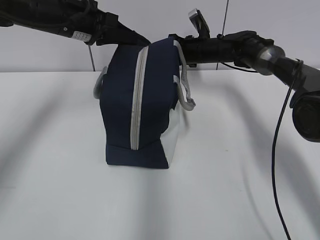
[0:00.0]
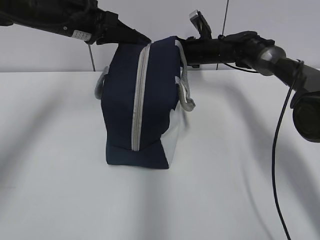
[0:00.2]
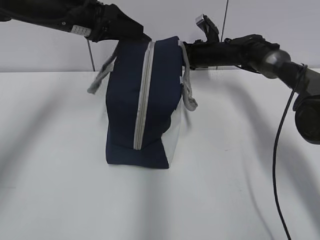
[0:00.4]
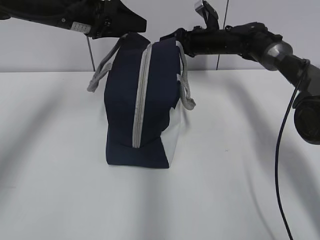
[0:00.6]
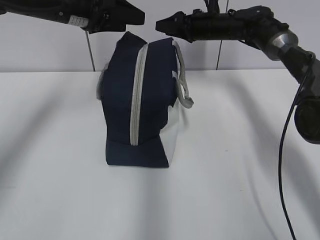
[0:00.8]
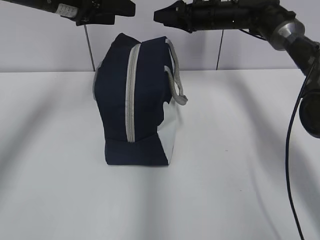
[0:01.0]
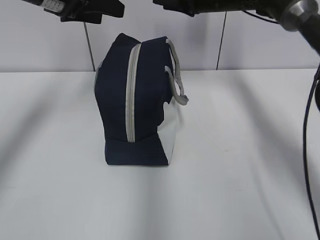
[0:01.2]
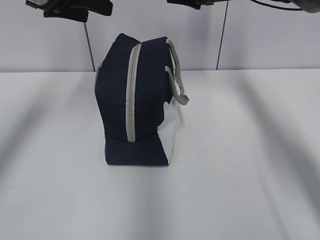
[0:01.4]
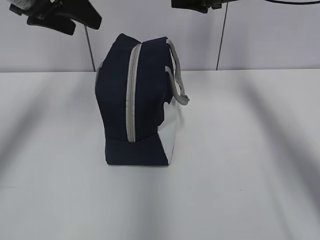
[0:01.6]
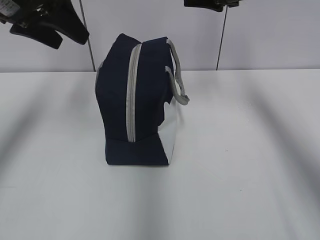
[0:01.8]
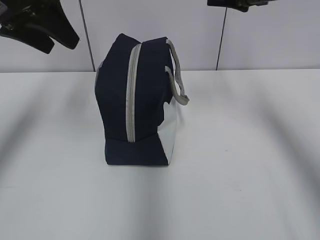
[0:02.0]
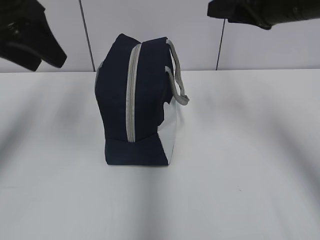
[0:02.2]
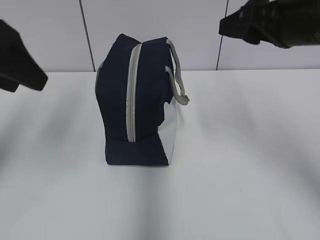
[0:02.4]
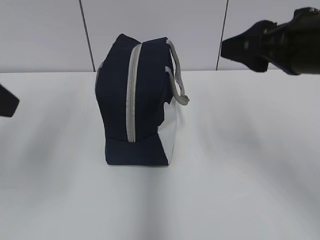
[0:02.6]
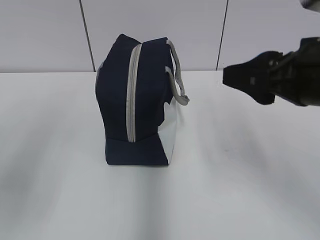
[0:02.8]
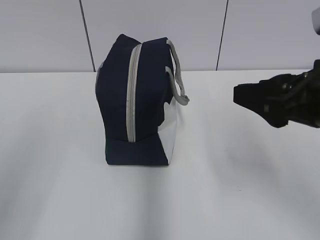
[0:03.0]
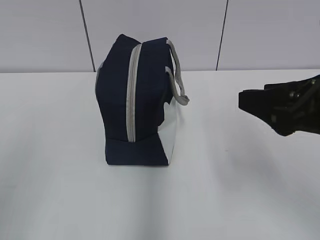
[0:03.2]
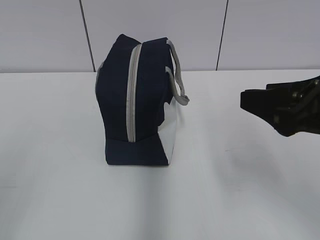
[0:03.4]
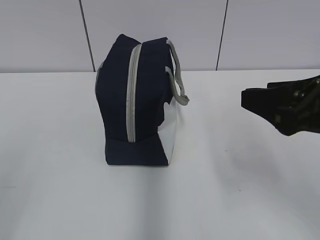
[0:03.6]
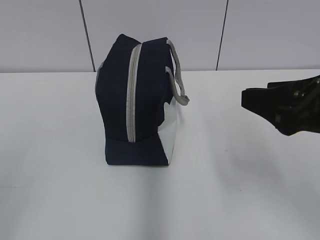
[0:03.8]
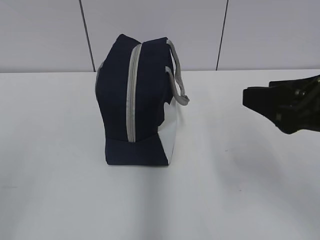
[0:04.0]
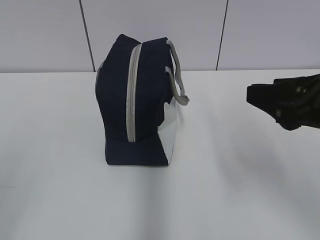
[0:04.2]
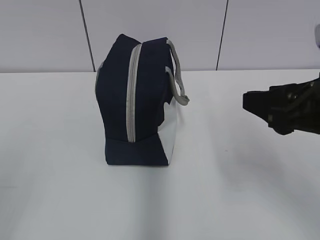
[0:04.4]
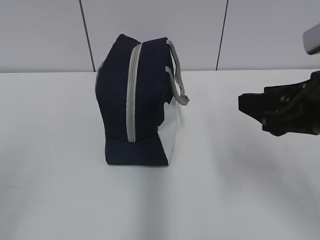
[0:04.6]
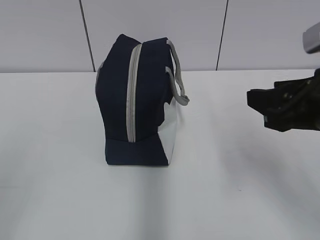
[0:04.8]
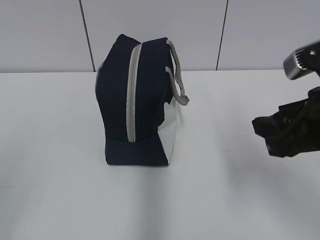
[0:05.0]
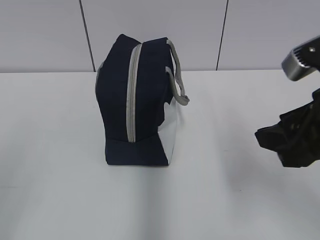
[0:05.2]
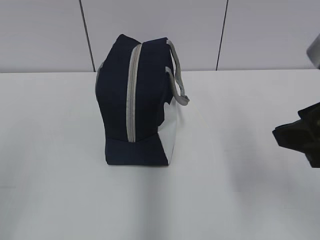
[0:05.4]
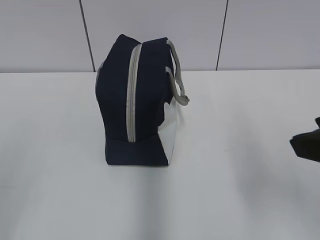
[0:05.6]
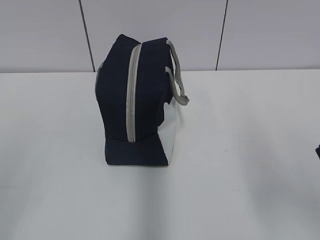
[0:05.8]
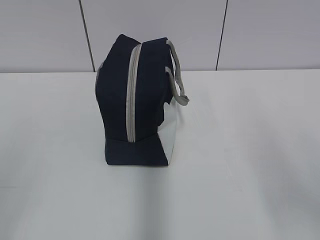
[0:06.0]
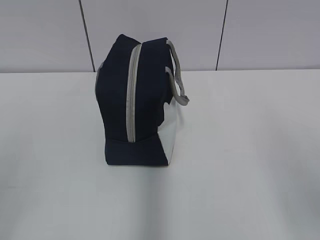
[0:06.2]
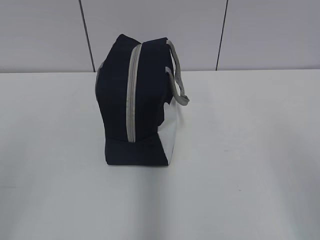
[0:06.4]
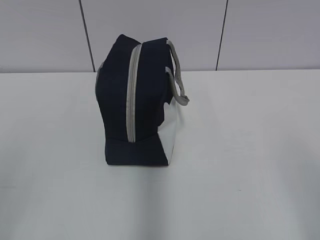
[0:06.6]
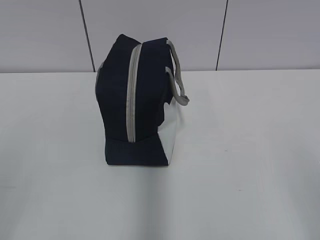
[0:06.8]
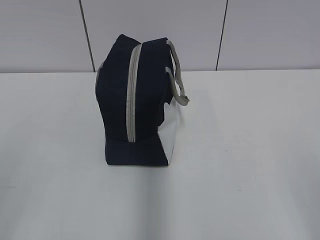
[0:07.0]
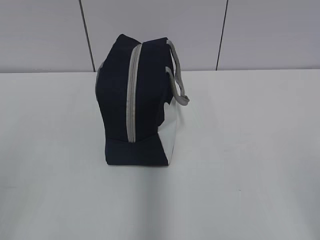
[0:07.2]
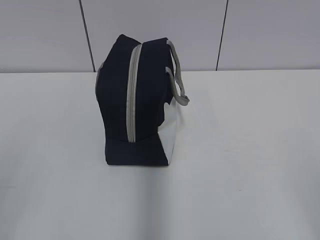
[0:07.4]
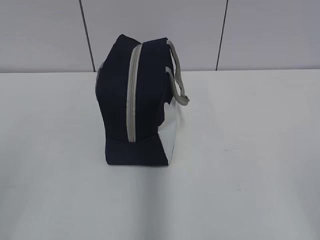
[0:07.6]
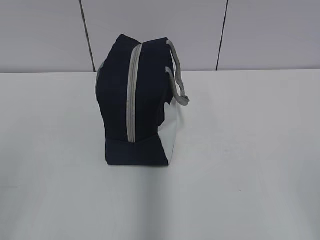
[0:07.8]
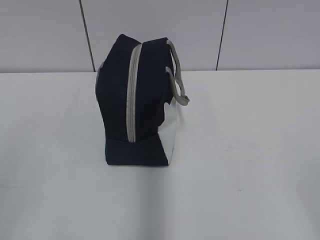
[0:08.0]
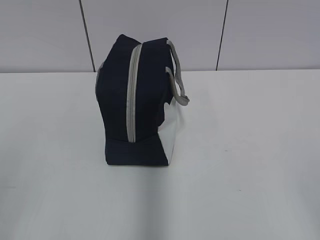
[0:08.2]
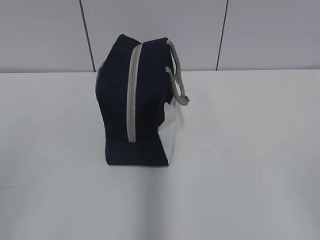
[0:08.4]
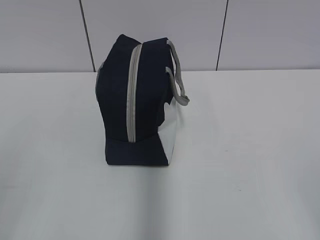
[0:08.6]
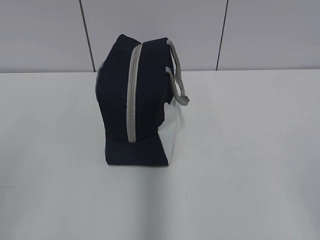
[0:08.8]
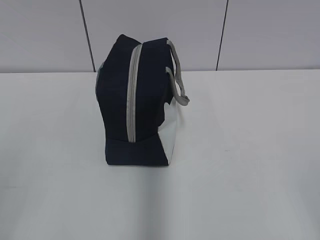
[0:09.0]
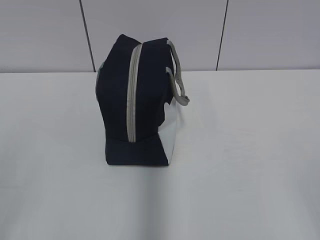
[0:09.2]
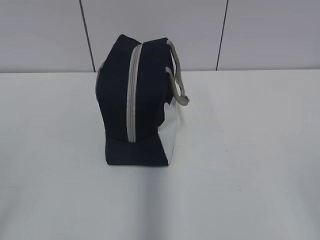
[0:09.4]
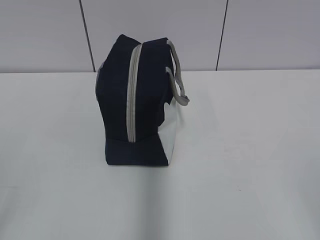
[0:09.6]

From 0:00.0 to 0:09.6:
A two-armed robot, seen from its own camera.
From 0:00.0 to 0:01.6: The left gripper travels upward and backward by approximately 10 cm, and opens its fingers. Meanwhile the right gripper moves upward and backward, roughly 20 cm, and opens its fingers.
From 0:01.6 to 0:03.2: The grippers both shift backward by about 30 cm.
From 0:03.2 to 0:04.8: The grippers move only a little.
From 0:04.8 to 0:06.4: The right gripper shifts some 15 cm backward, to the right and upward.

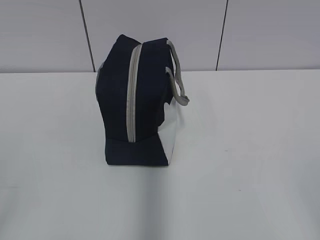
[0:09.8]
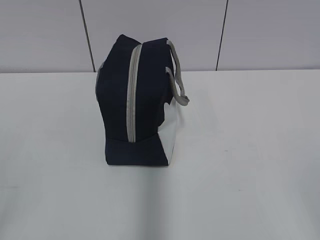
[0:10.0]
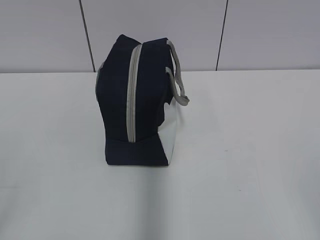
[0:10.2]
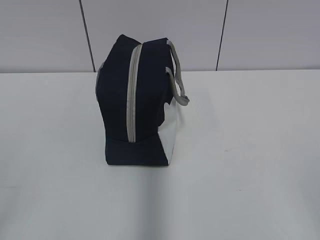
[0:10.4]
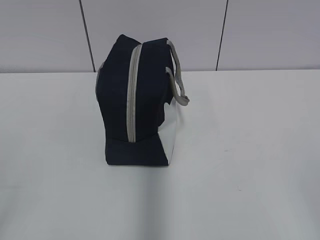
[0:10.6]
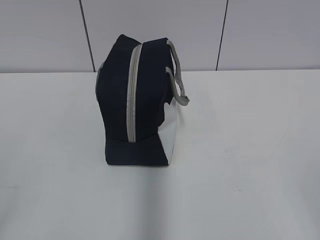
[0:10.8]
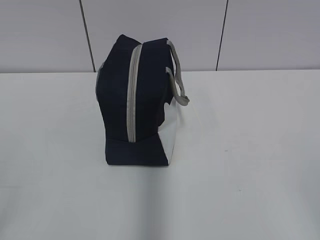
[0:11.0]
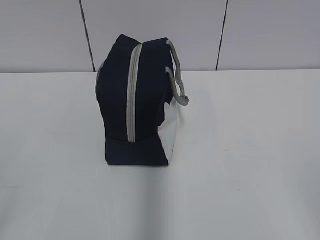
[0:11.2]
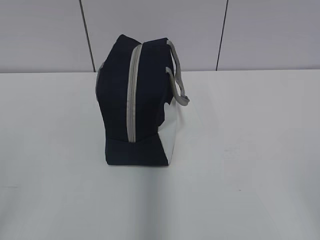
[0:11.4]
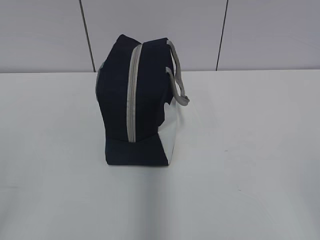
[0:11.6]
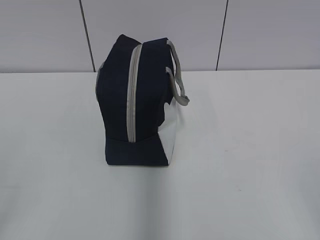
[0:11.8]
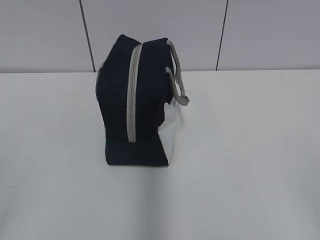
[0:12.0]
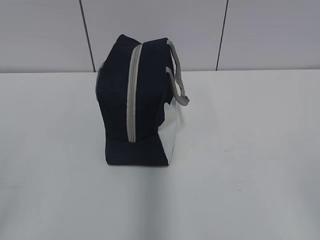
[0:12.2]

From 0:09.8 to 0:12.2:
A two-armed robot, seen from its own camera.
From 0:09.8 to 0:12.2: Neither gripper changes place.

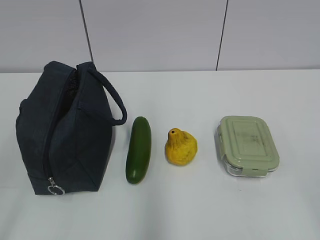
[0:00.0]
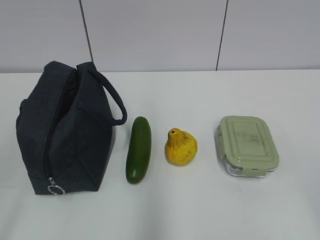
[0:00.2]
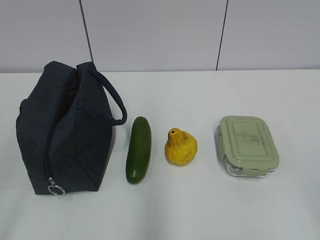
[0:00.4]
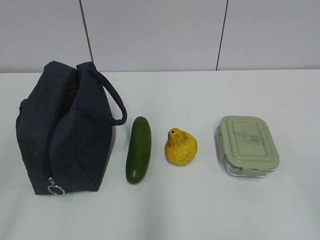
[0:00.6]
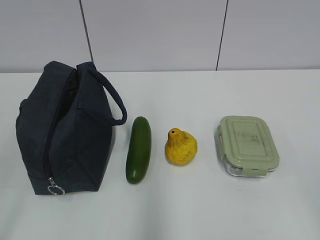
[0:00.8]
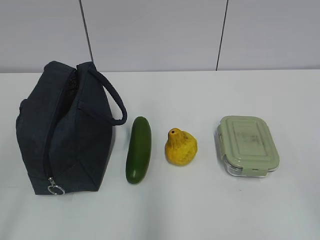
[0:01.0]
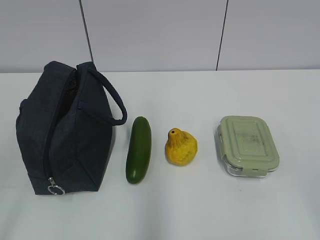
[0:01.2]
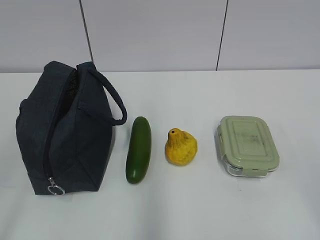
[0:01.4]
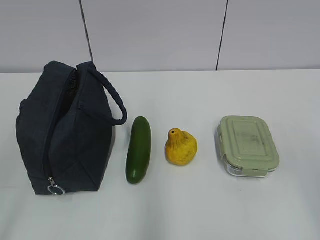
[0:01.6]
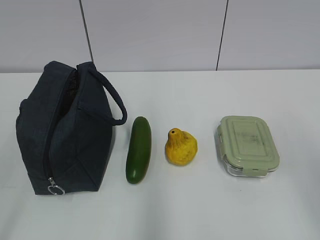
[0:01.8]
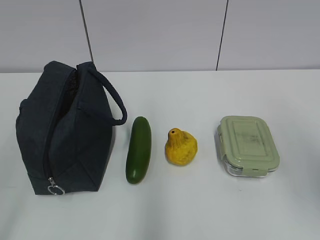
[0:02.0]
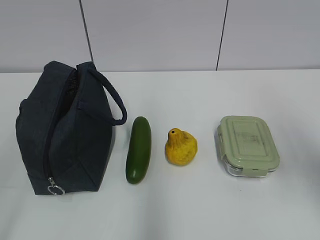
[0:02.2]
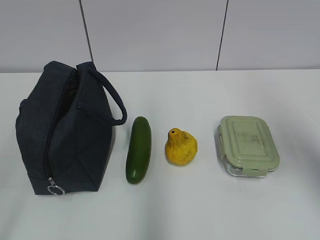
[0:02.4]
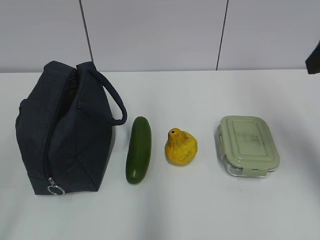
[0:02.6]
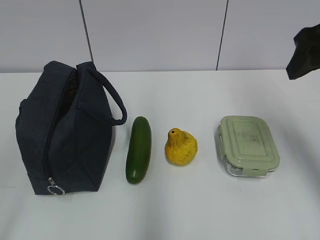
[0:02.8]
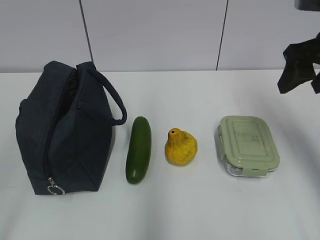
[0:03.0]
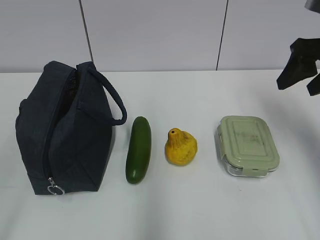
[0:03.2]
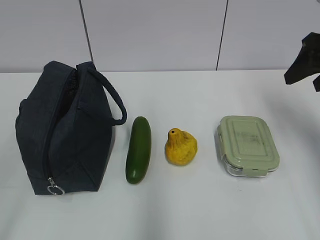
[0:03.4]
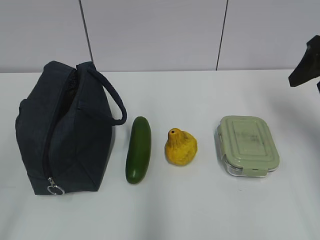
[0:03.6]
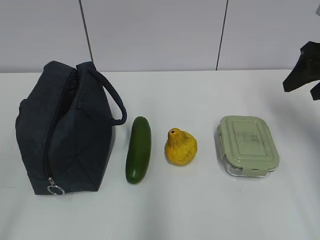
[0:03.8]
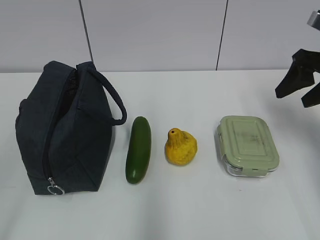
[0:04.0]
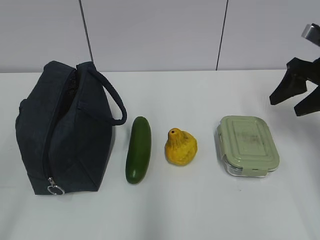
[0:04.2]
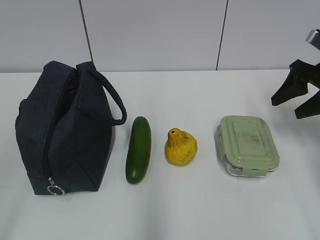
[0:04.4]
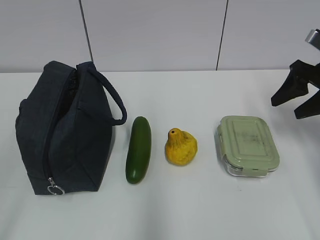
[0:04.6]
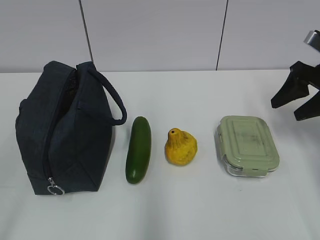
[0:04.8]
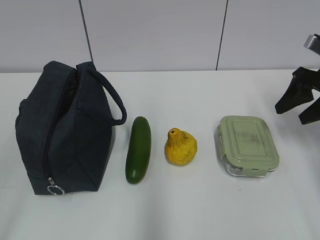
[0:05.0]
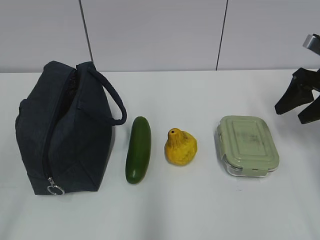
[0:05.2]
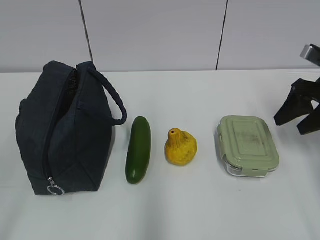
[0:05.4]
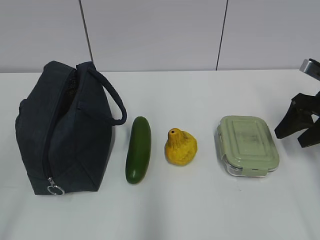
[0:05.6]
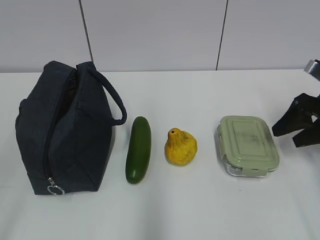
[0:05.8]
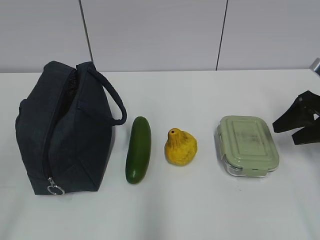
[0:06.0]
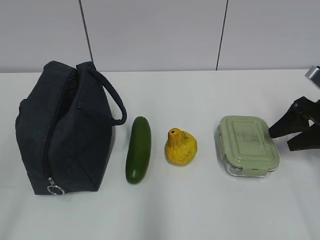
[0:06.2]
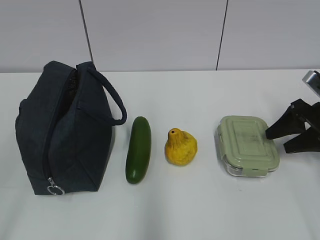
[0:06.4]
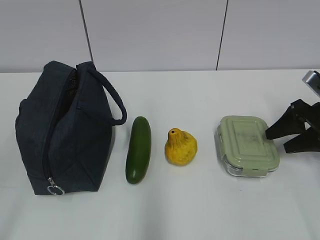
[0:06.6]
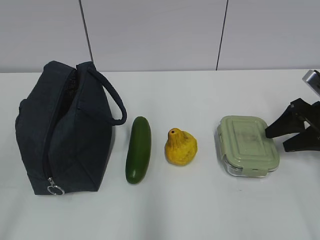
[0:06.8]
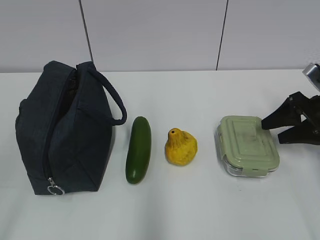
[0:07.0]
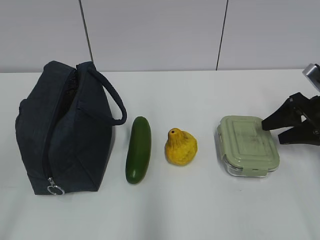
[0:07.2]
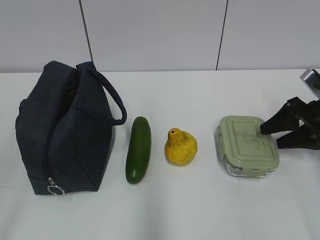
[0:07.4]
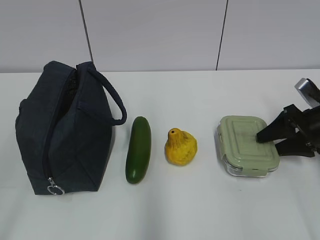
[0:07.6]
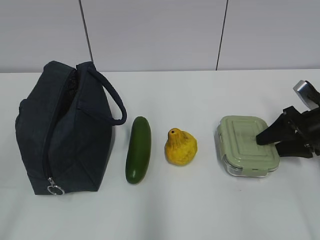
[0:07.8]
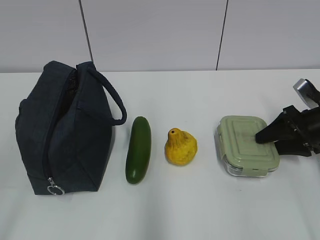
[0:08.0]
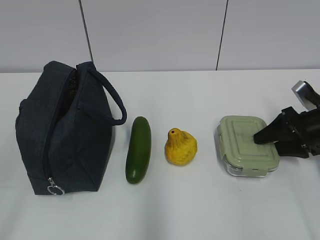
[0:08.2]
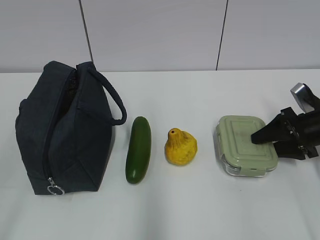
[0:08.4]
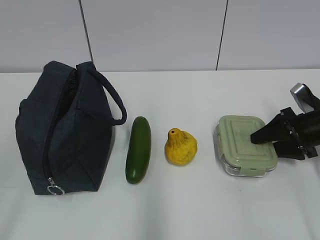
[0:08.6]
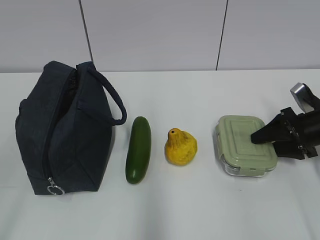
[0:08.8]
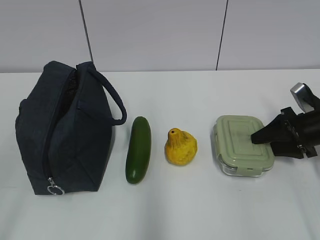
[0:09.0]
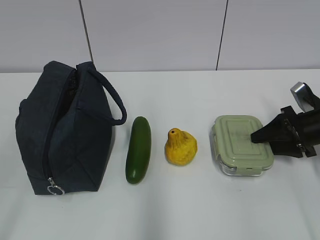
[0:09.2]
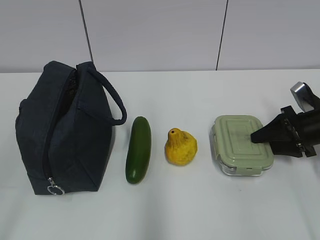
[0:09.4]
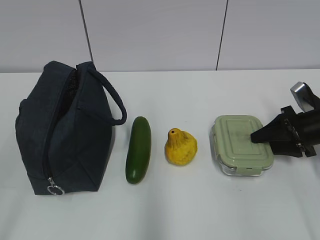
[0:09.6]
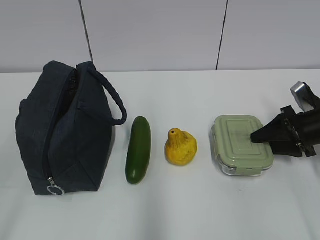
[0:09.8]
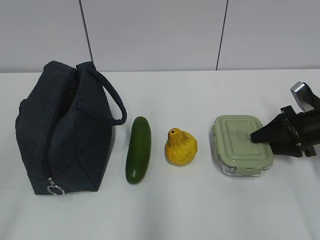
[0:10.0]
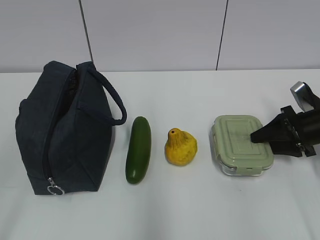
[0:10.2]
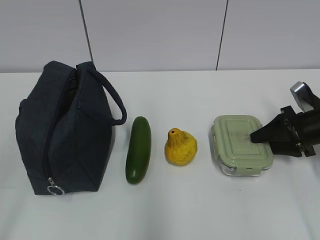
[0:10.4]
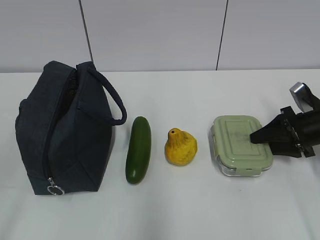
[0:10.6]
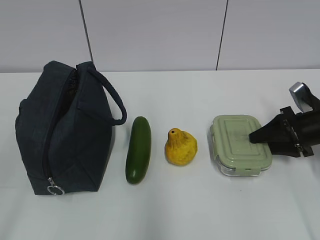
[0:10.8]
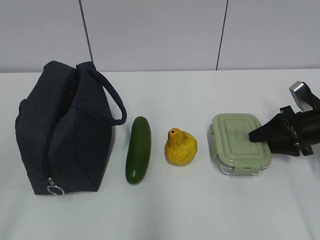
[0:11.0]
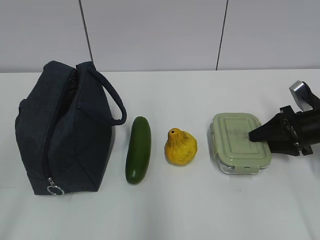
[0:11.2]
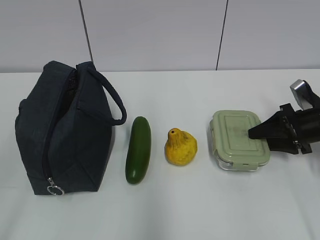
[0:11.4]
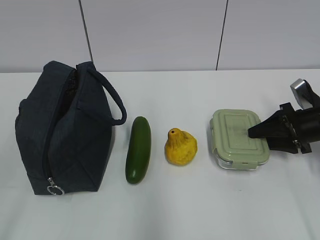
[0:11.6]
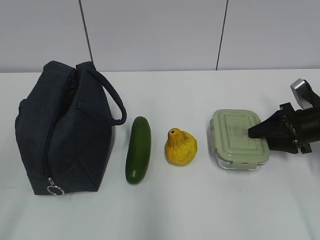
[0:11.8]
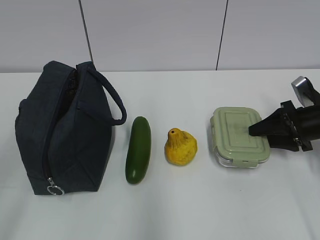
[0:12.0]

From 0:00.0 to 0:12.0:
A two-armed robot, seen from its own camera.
From 0:01.6 to 0:03.0: The right gripper goes roughly 30 cm forward.
From 0:03.0 to 0:04.4: The right gripper shifts approximately 10 cm downward and to the right.
From 0:04.4 to 0:06.0: The right gripper ends up approximately 5 cm from where it was.
From 0:06.0 to 0:07.6: The right gripper goes some 5 cm downward.
From 0:07.6 to 0:09.0: The grippers make only small movements.
From 0:09.0 to 0:10.4: Both grippers stay about where they are.
